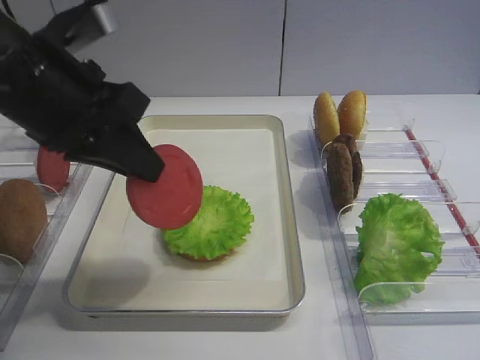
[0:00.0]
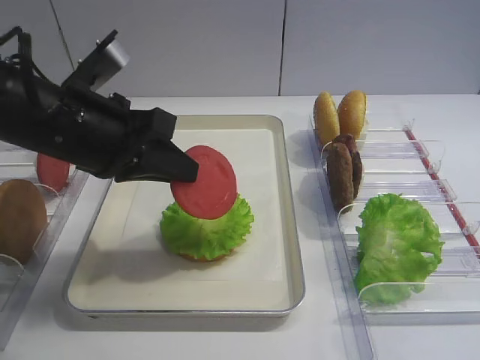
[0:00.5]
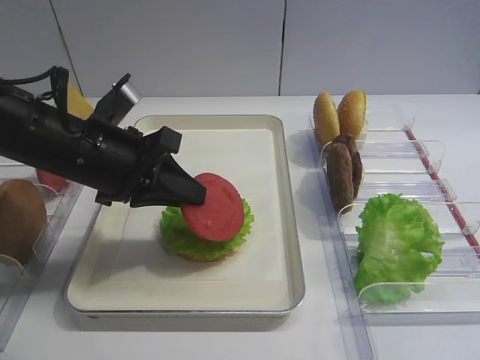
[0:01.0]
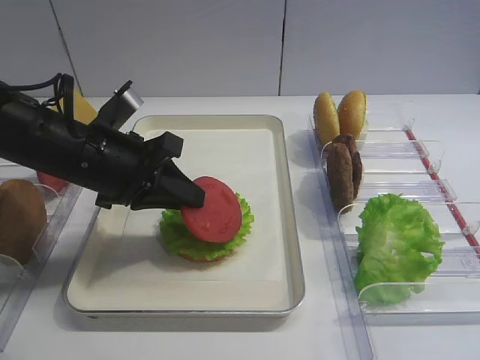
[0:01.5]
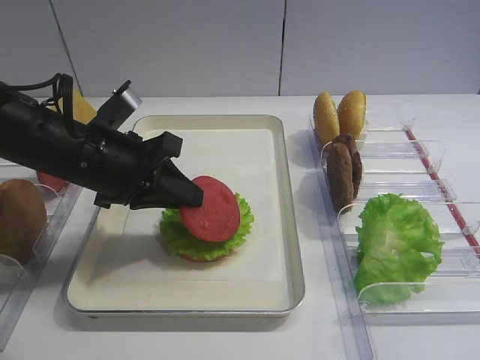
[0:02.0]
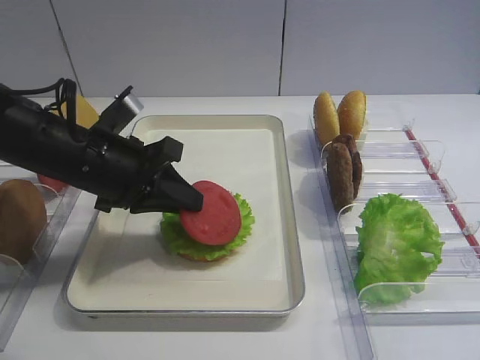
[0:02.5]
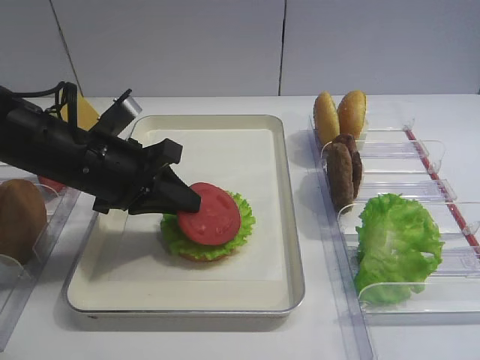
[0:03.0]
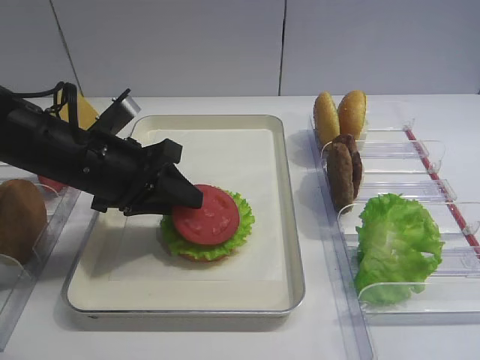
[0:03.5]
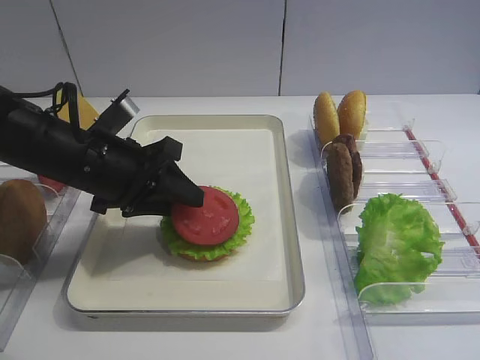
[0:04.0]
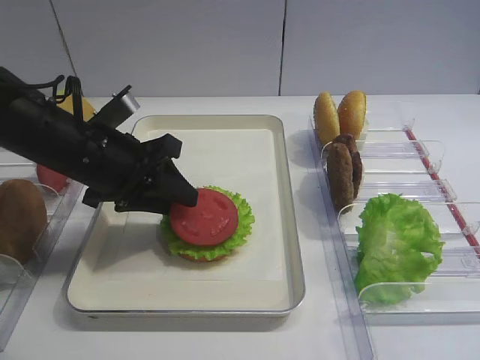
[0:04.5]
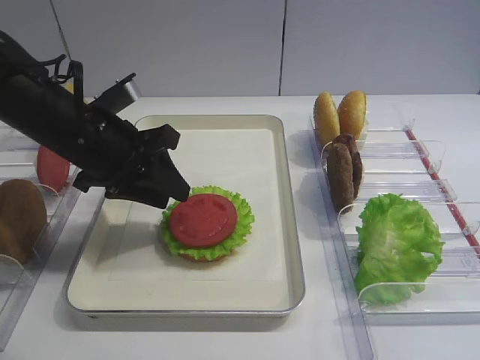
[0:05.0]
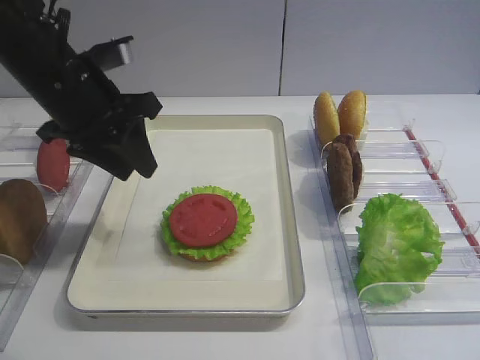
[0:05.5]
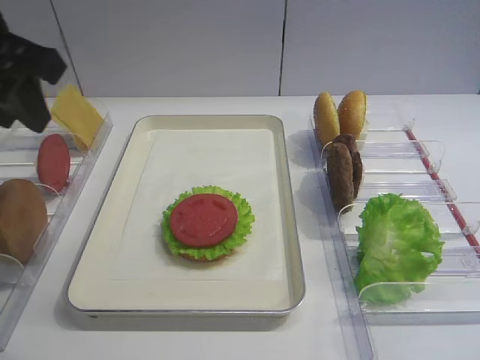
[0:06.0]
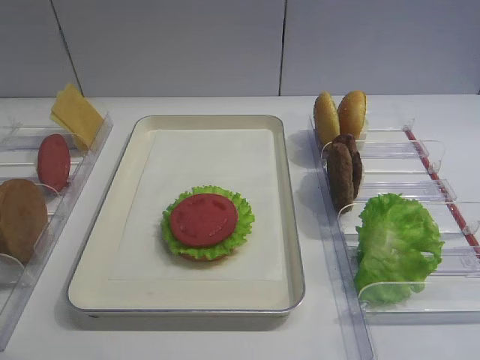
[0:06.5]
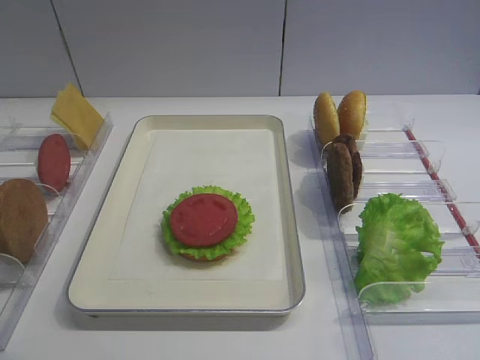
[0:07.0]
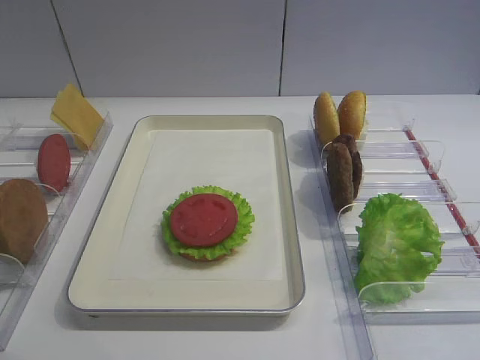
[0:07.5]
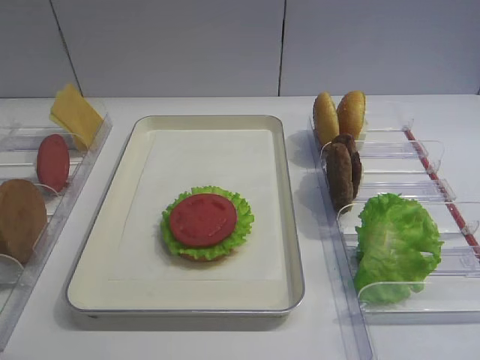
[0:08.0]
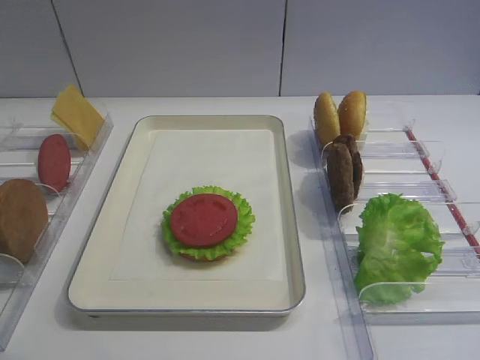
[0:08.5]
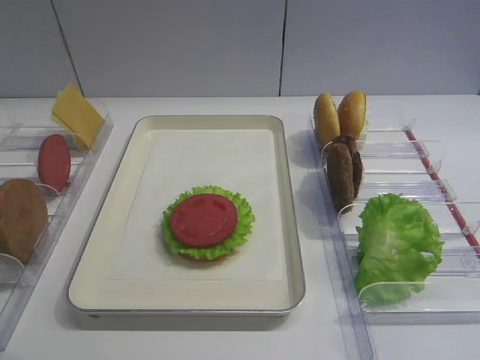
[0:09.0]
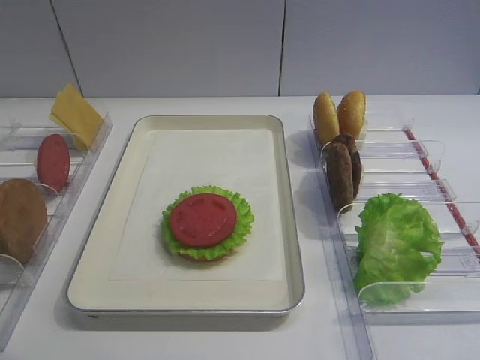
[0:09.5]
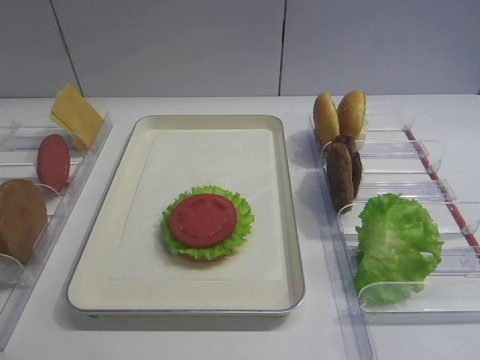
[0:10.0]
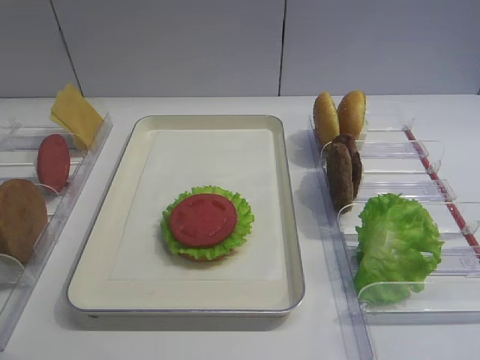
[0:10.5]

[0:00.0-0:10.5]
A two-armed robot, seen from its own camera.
Step, 0:00.0 to 0:05.0: Place the tomato slice on the lettuce leaf with the left gripper.
0:00.0 to 0:02.0: The left gripper moves downward, approximately 10 cm.
0:02.0 to 0:04.0: The left gripper opens its fingers.
0:04.0 to 0:06.5: The left gripper is displaced upward, backward and to the left by some 30 cm.
0:08.5 to 0:10.5: Neither gripper changes place.
